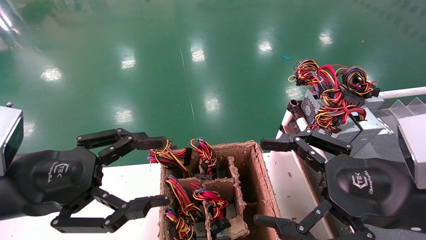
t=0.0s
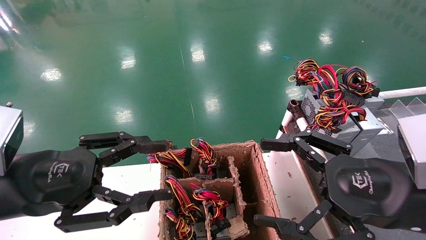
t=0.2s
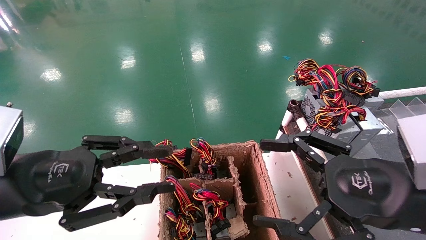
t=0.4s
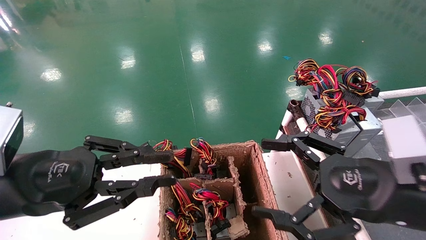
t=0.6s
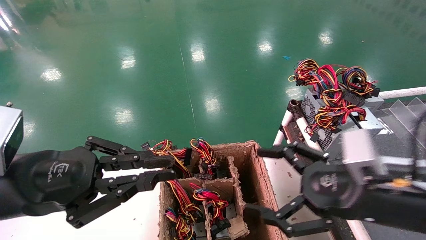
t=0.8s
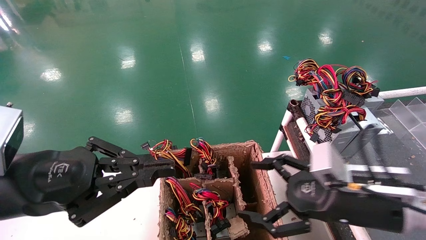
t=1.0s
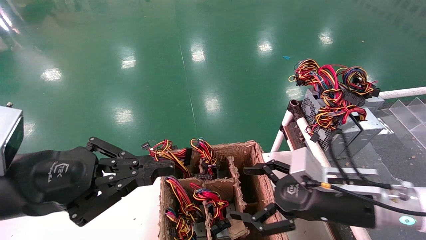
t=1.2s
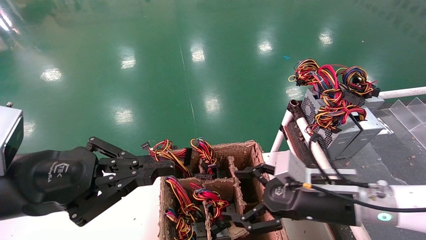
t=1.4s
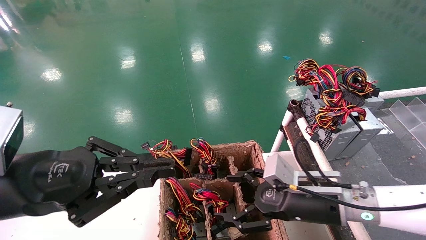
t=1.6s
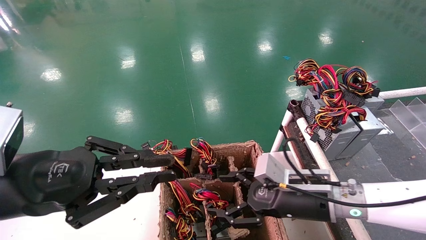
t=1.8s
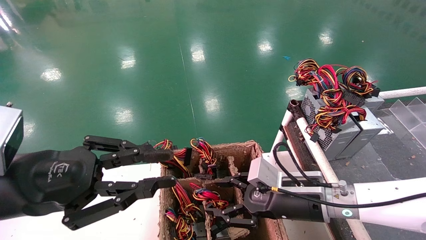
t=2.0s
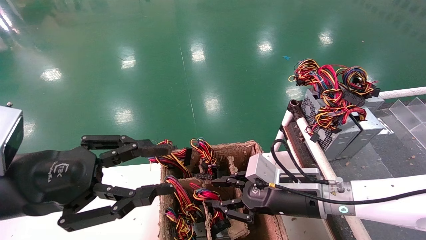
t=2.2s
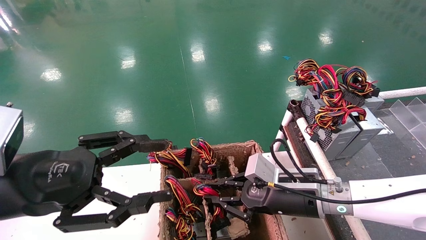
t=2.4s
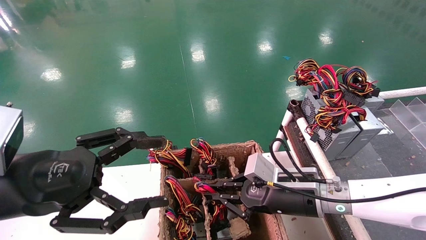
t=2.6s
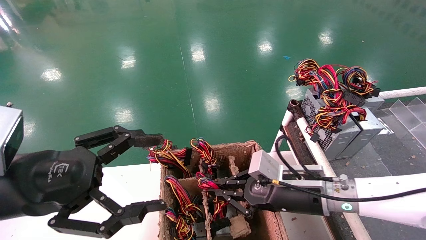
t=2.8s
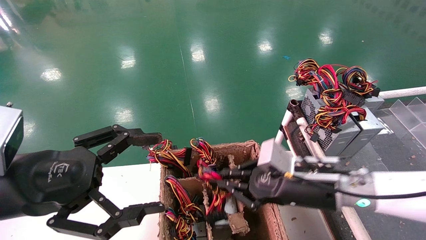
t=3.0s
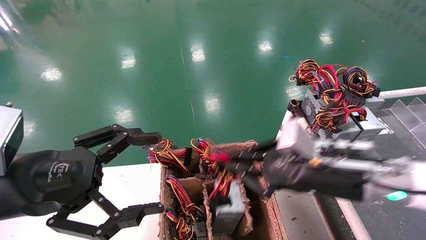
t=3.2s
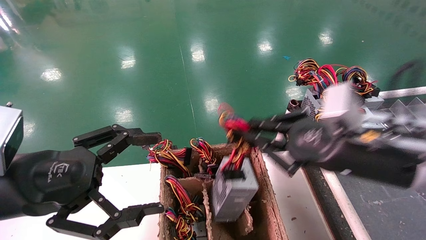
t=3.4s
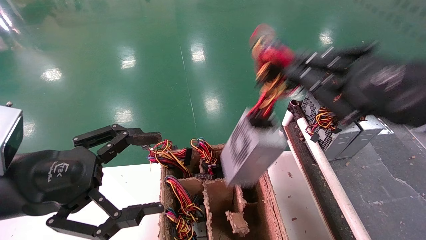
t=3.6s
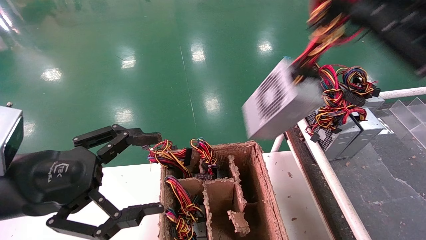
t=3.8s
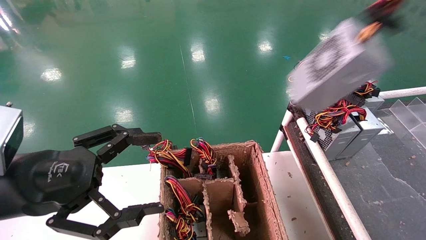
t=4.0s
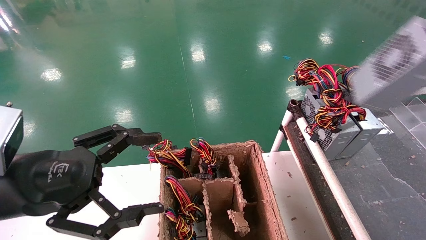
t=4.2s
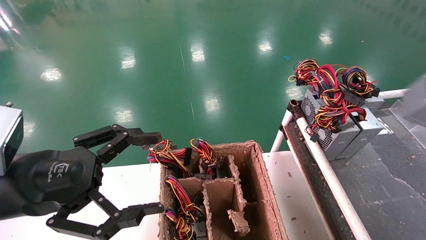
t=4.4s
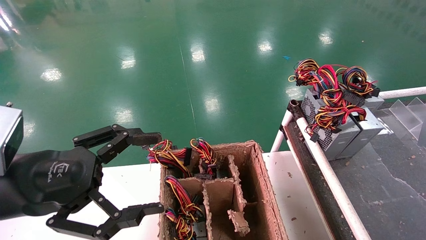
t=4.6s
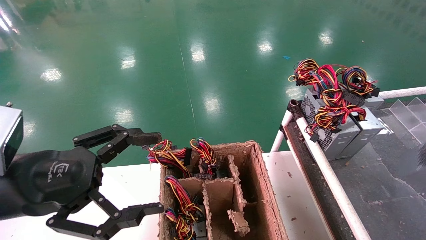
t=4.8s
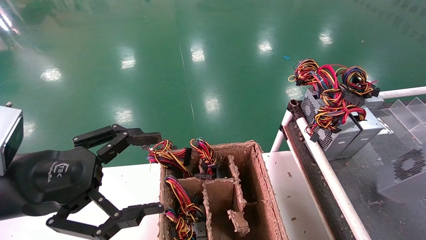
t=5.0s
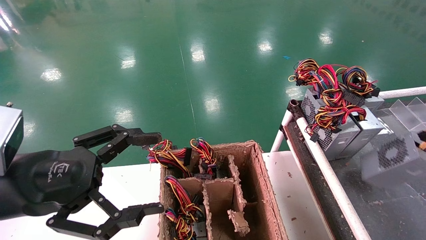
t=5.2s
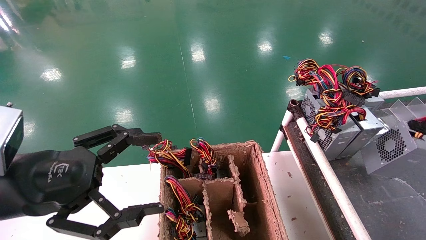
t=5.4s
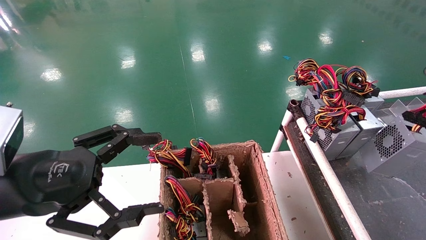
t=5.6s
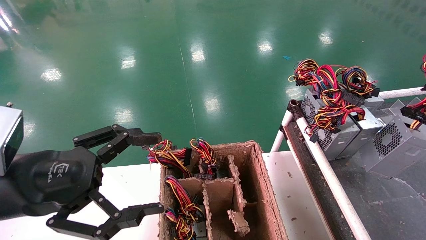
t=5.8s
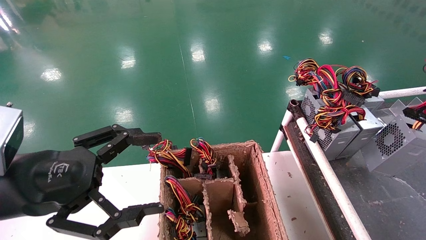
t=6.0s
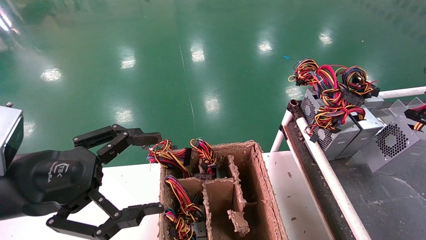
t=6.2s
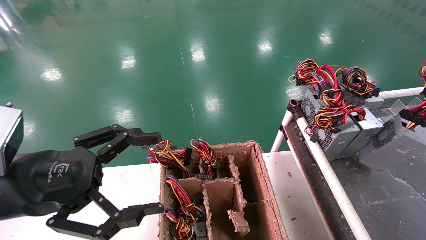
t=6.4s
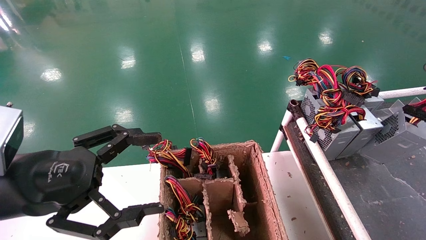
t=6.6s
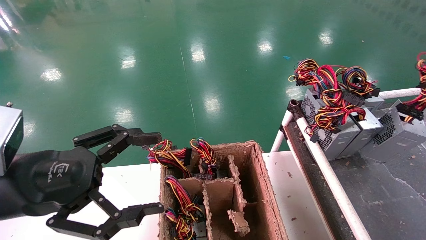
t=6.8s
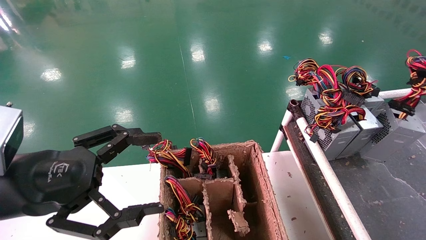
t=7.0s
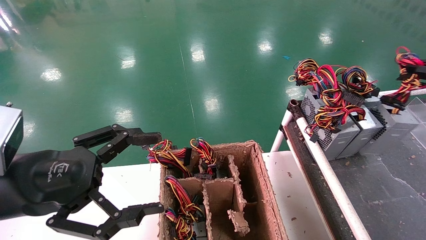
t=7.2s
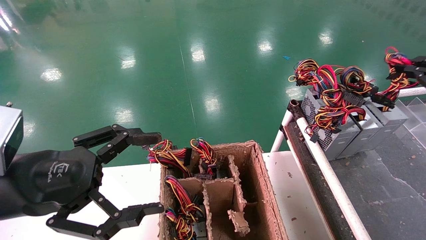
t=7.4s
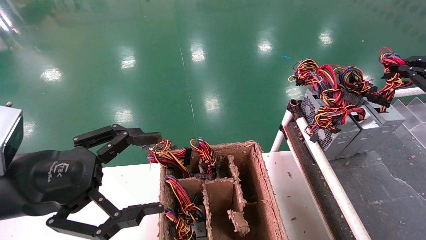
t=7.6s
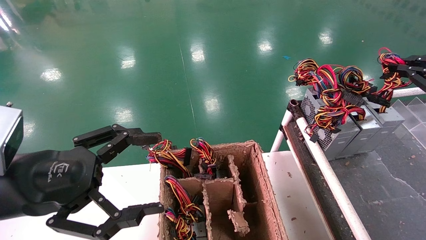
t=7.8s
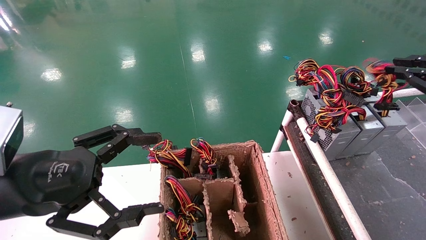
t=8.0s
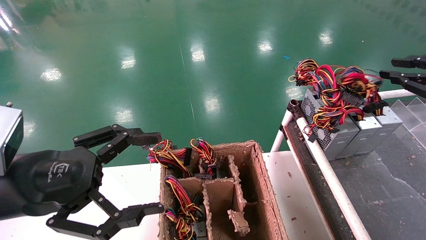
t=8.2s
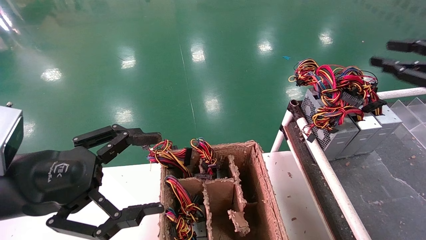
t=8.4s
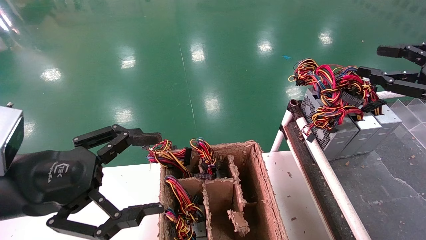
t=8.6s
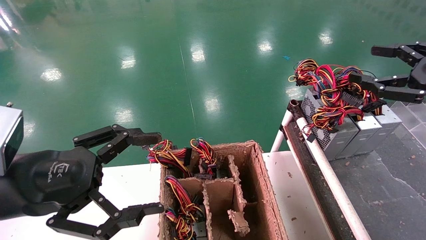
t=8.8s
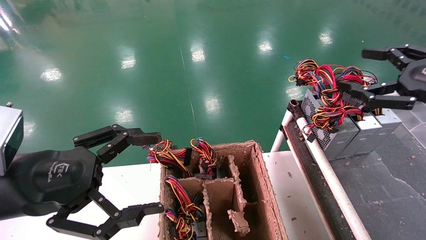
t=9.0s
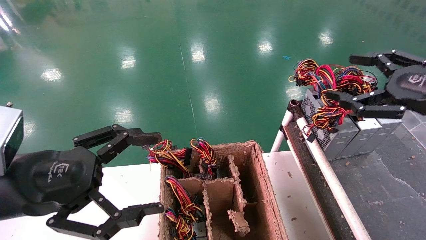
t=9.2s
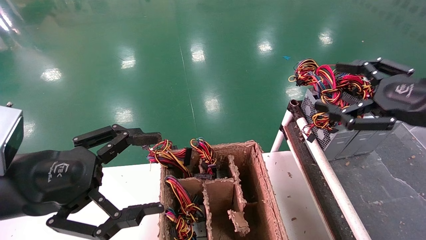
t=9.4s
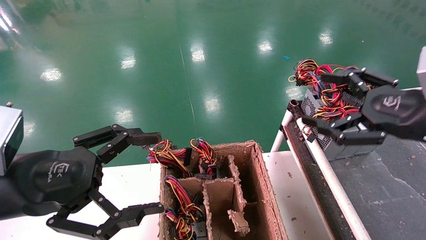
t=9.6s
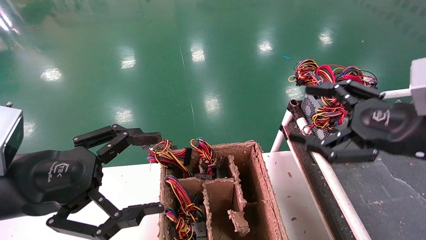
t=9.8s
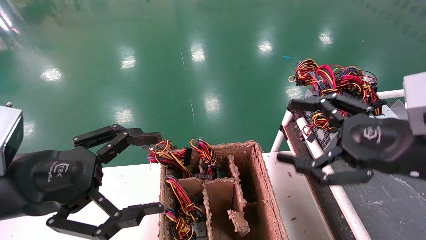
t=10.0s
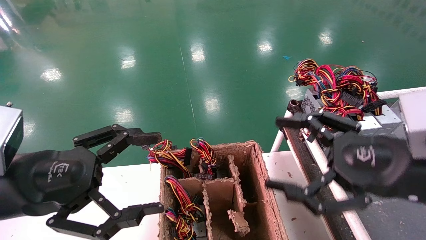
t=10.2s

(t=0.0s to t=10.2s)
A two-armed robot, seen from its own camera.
Step, t=1.0s - t=2.6s: Grab and lift the power supply from the large box.
Step, t=2.8s - t=8.0s: Place the power supply on the operating table.
t=0.0s - t=1.4s: The right gripper travels forward and downward by approximately 15 cm. The left gripper closes up.
t=1.4s - t=3.0s: The left gripper opens its fingers. Meanwhile the right gripper closes.
t=3.0s - t=4.4s: The right gripper is displaced to the right, upward and backward by approximately 40 cm.
t=4.4s - t=5.8s: The right gripper heads forward and downward, covering roughly 15 cm.
t=5.8s - t=7.2s: The right gripper heads forward, covering about 5 cm.
t=7.2s - t=8.8s: The right gripper goes some 5 cm to the left, and opens.
t=8.8s - t=10.2s: The right gripper is displaced to the left, downward and backward by roughly 20 cm, and opens.
